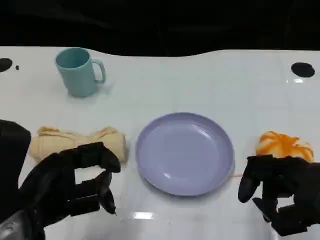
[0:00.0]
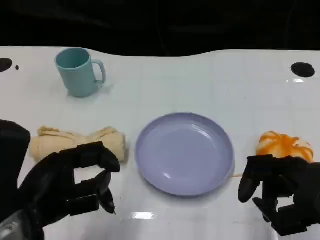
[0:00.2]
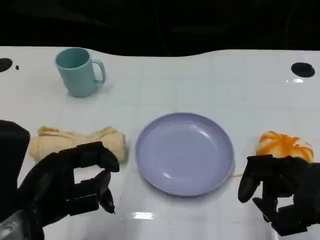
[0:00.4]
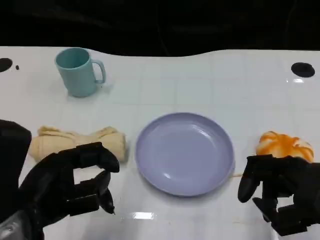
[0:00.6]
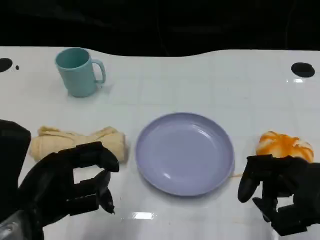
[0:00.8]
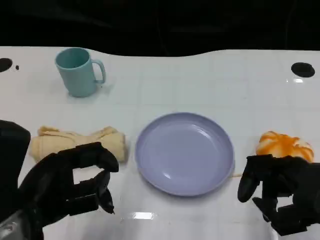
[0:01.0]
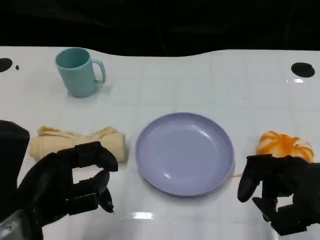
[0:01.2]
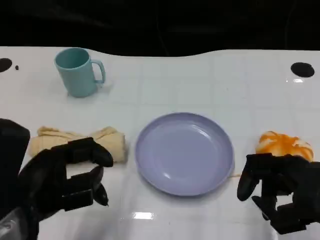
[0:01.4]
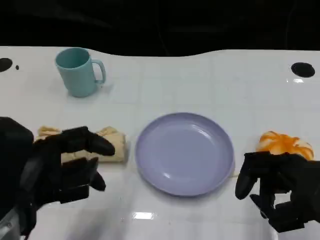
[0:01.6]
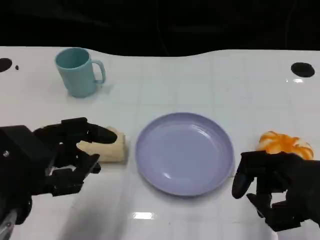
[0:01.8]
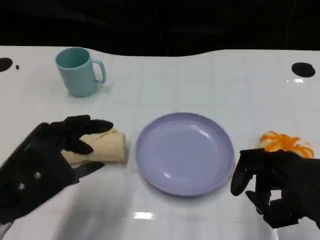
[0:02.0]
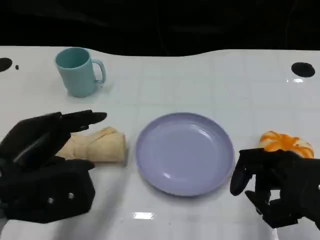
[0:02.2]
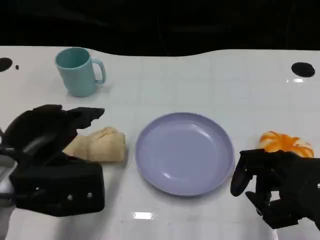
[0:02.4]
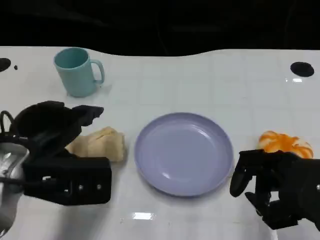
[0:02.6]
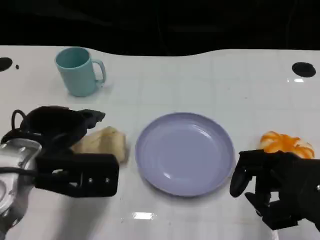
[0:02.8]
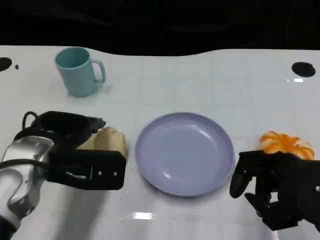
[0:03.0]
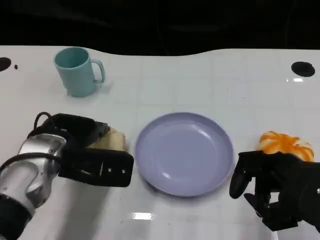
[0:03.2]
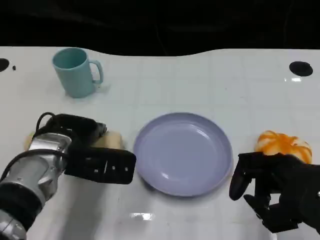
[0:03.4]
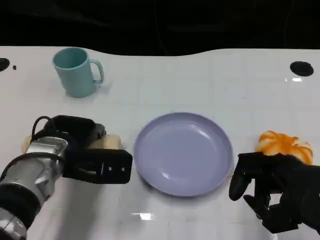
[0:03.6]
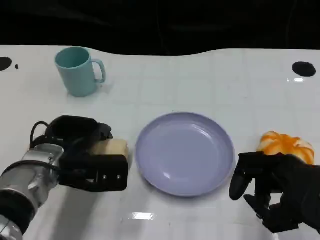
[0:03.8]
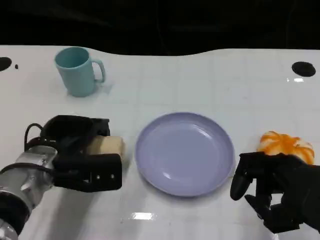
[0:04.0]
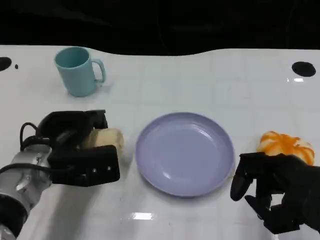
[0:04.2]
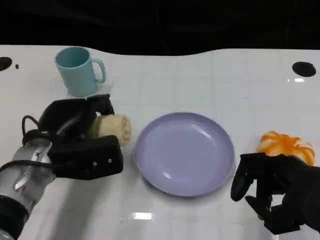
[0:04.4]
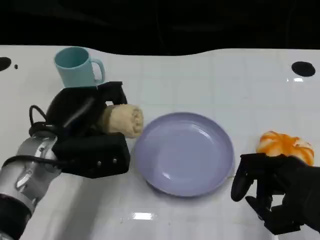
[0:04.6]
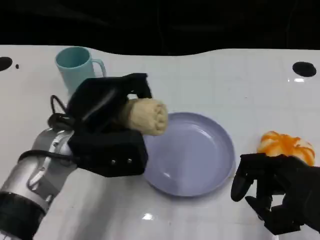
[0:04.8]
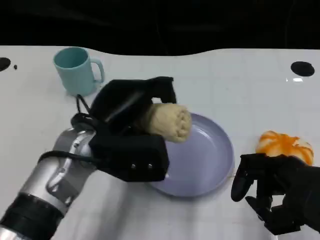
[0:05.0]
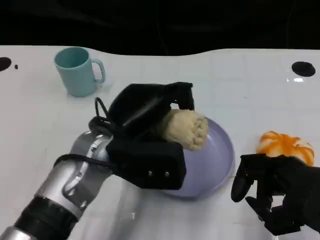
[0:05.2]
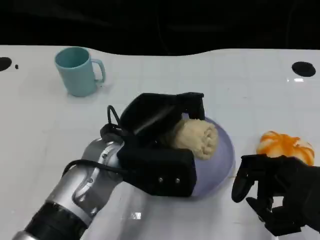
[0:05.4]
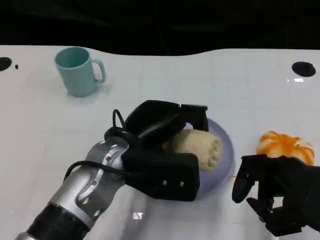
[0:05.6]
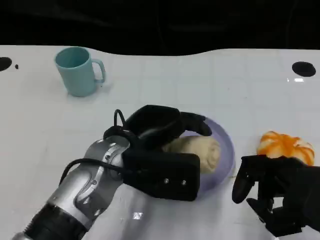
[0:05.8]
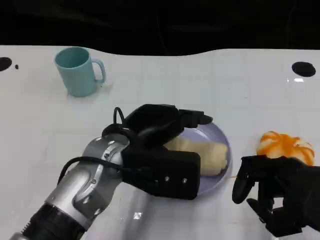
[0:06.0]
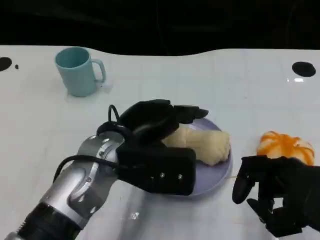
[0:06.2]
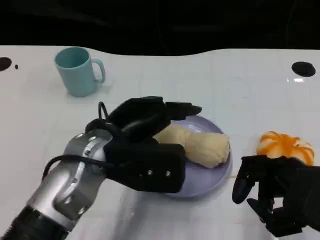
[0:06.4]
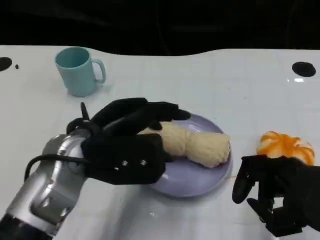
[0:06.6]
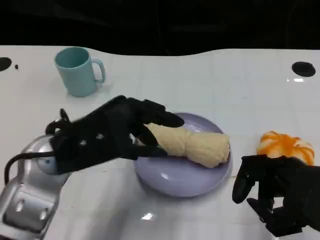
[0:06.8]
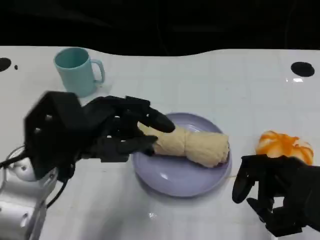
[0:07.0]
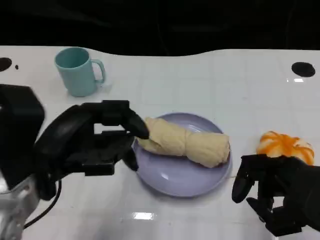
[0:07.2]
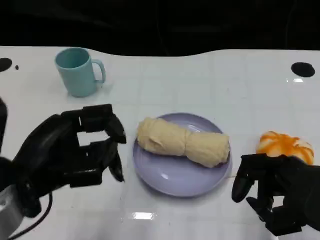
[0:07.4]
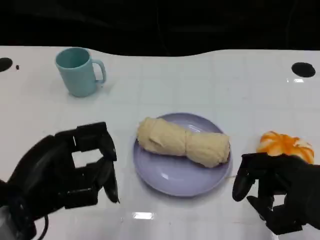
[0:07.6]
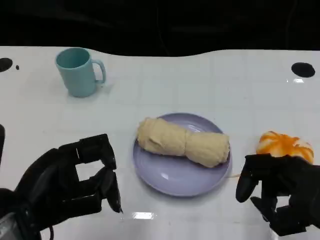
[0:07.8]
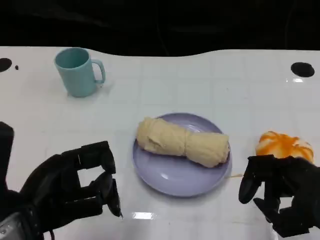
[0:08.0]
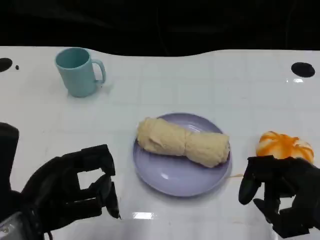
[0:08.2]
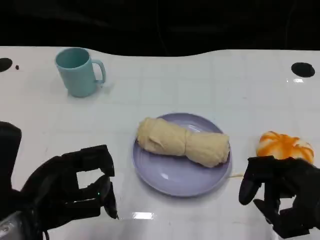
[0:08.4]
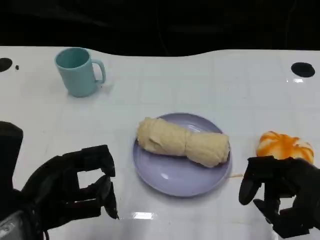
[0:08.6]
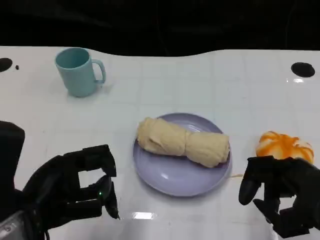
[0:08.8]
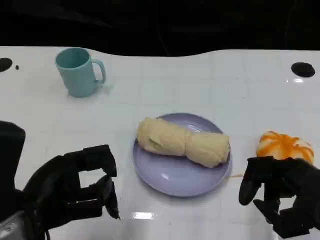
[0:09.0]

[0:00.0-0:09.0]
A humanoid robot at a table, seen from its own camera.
Task of the whole recording: Grasp the towel on the left side of the plate with the left hand and place it into the plate.
0:00.0 to 0:01.6: The hands make only small movements.
0:01.6 to 0:03.0: The left hand heads forward, covering roughly 10 cm.
0:04.4 to 0:06.0: The left hand travels to the right by roughly 10 cm.
0:06.0 to 0:07.6: The left hand travels to the left and backward by about 15 cm.
0:07.6 to 0:09.0: There are only small adjustments of the hands.
